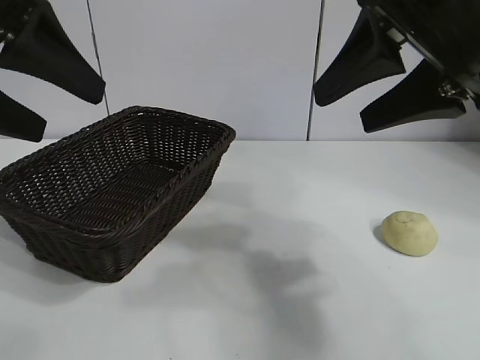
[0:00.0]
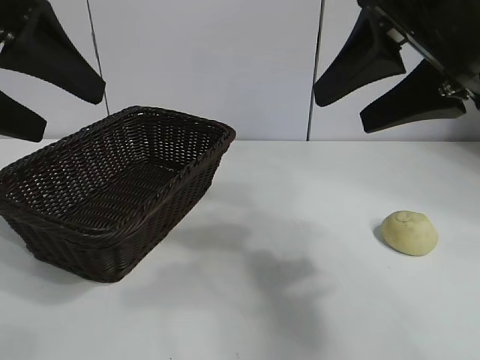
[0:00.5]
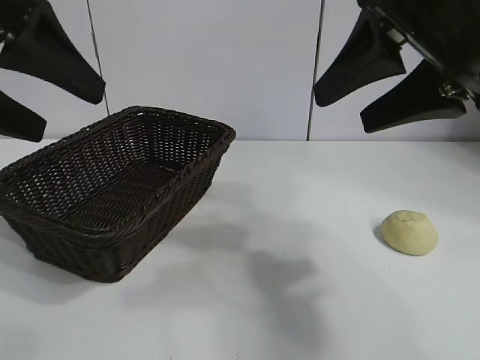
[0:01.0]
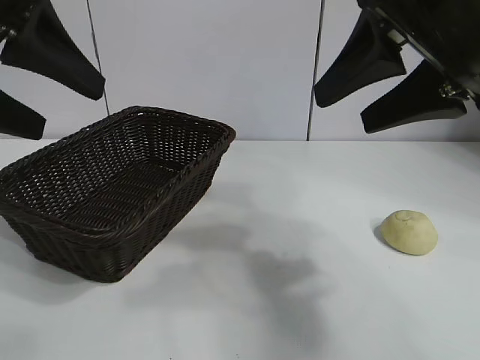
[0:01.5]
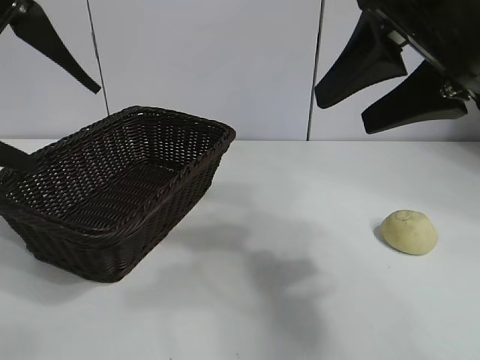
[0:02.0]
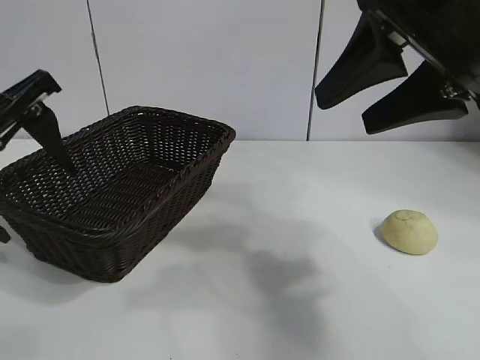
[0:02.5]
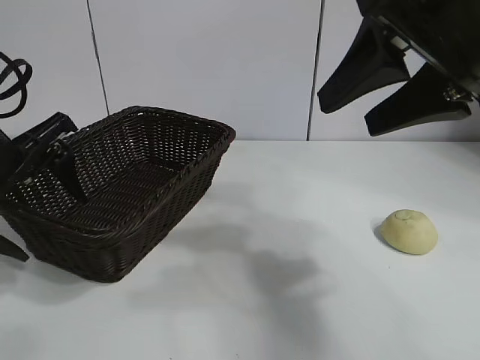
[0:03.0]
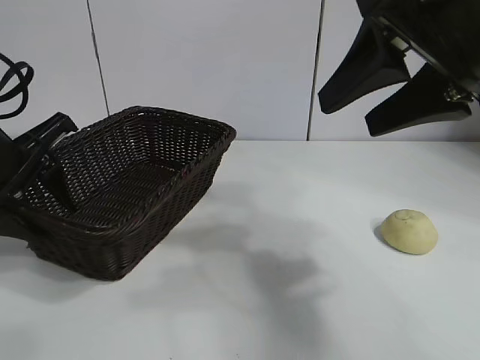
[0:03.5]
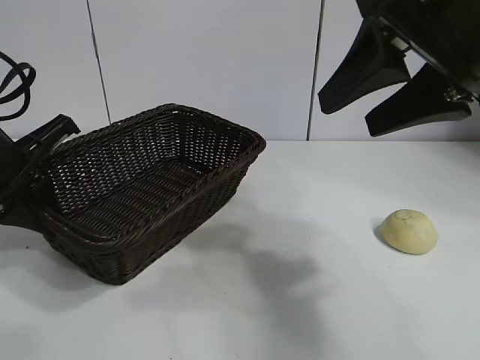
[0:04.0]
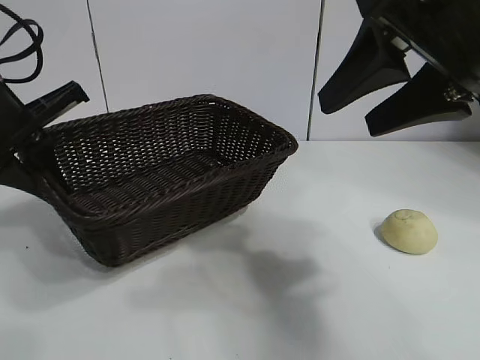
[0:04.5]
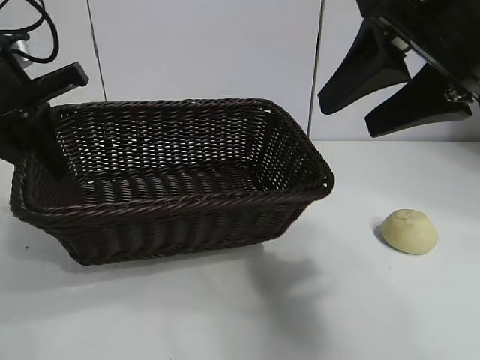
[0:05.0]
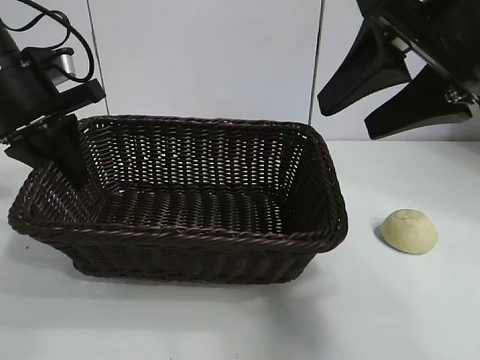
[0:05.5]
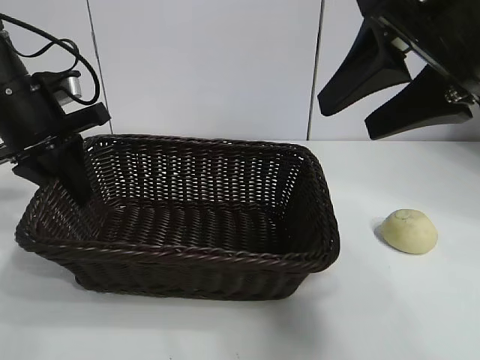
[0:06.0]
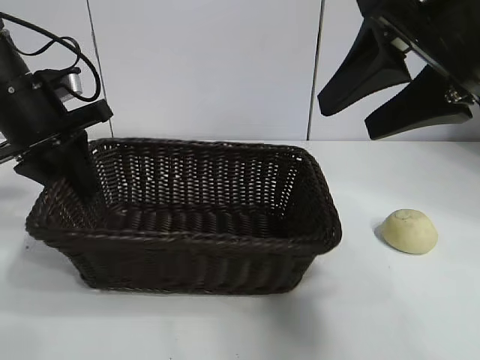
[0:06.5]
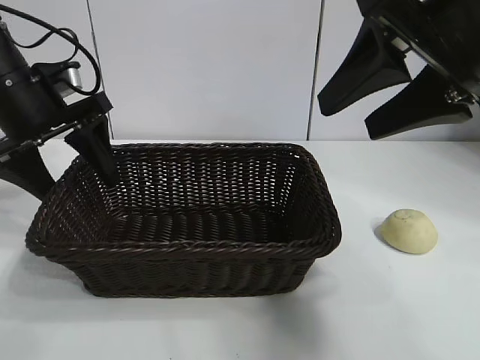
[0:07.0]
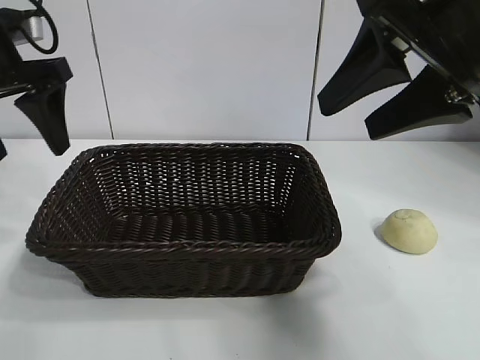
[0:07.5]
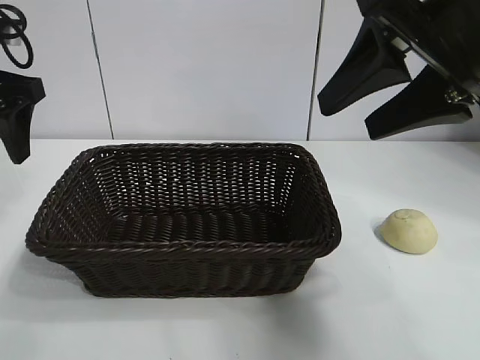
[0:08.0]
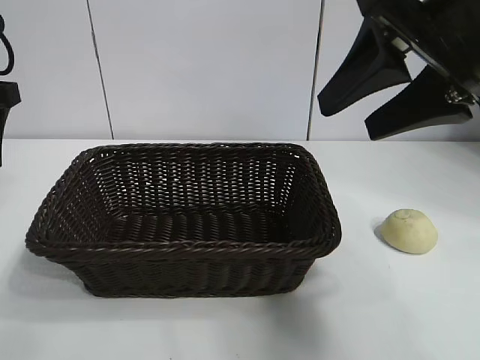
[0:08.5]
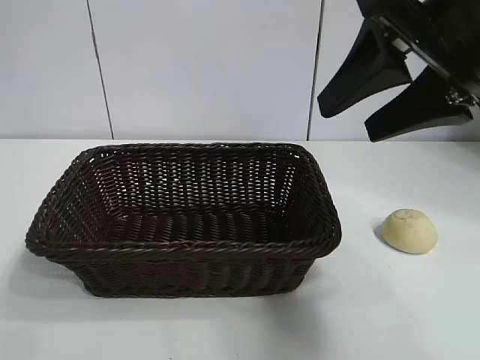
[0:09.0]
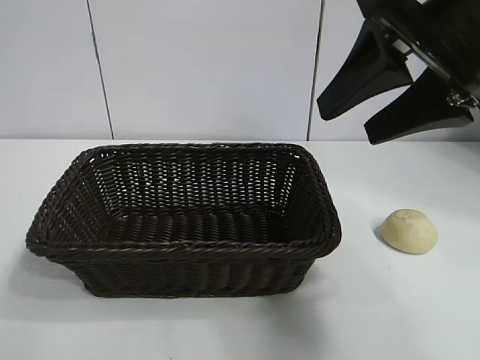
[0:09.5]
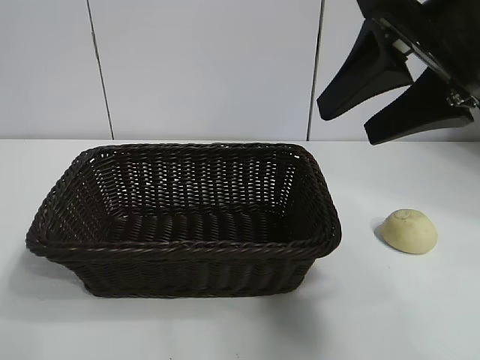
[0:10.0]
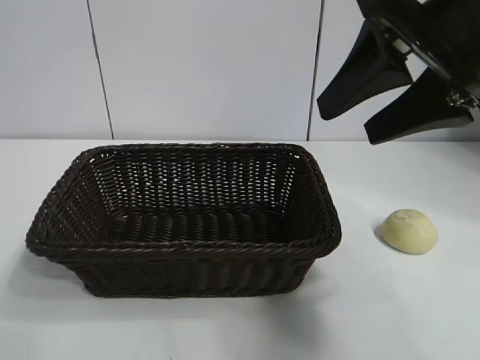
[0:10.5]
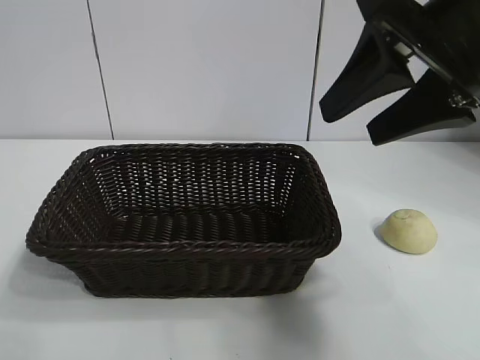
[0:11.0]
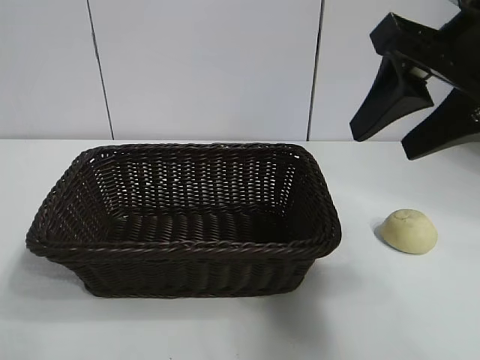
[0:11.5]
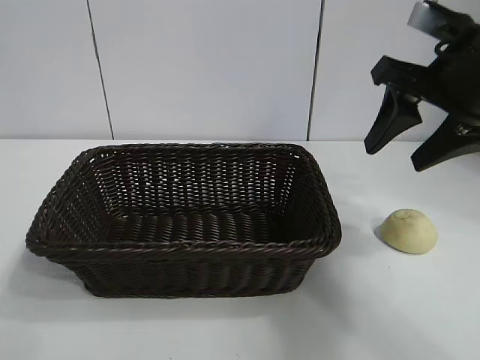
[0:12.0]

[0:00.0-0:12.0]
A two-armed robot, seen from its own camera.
Task of the whole recording: pick up the egg yolk pastry and put it into the basket.
Step, 0:02.0 to 0:03.5: Grasp the basket with left gripper.
Step, 0:04.0 to 0:07.0: Place the basket in the center of view with left gripper.

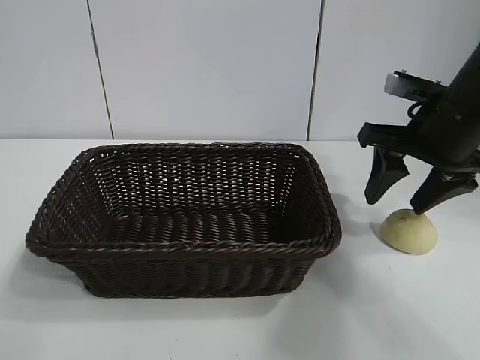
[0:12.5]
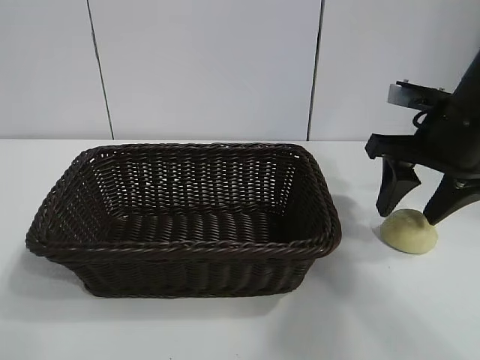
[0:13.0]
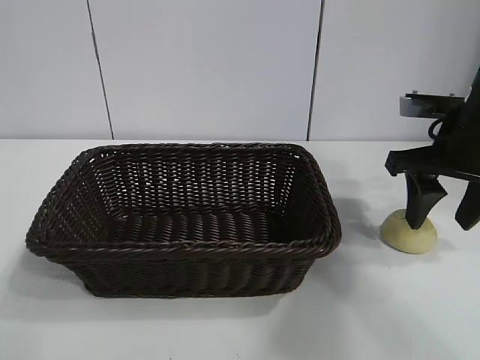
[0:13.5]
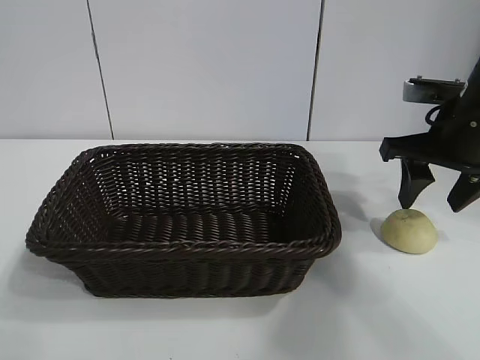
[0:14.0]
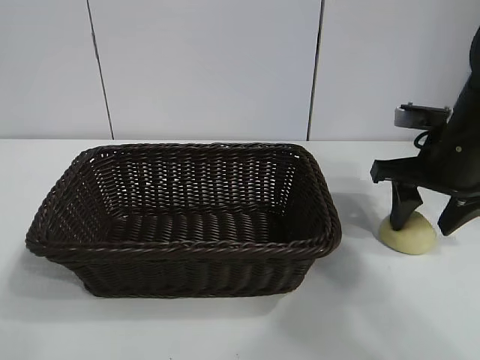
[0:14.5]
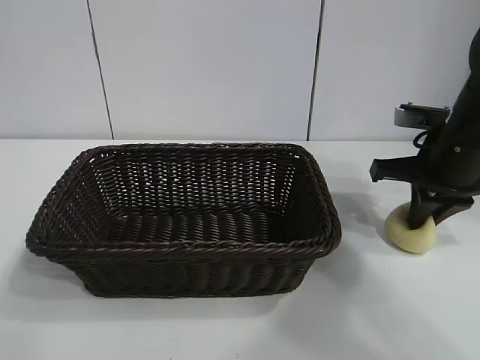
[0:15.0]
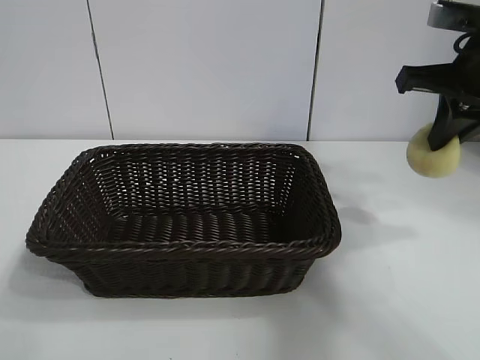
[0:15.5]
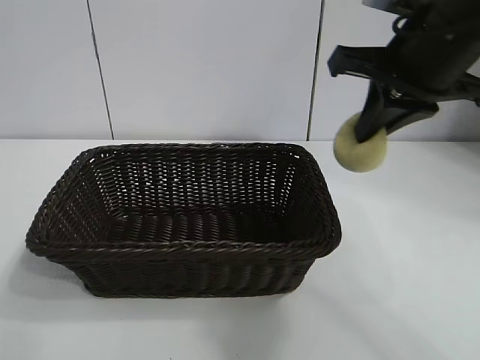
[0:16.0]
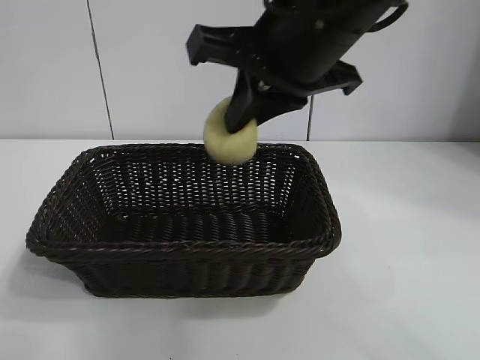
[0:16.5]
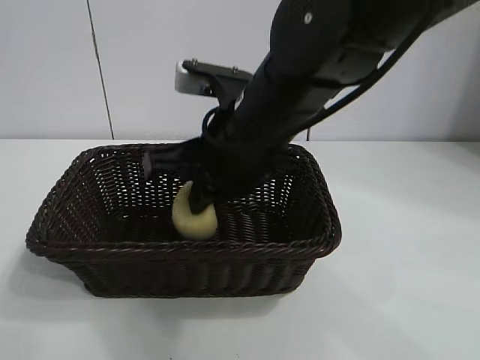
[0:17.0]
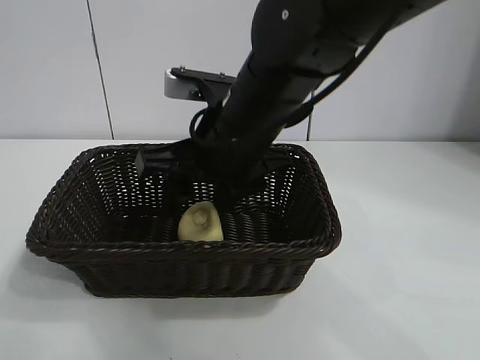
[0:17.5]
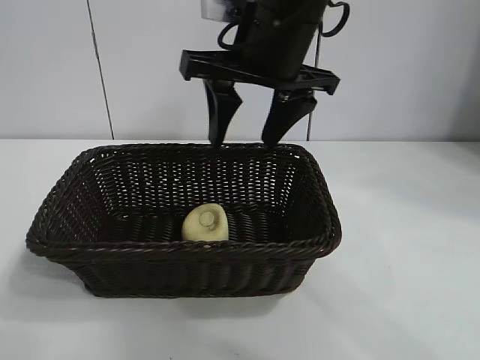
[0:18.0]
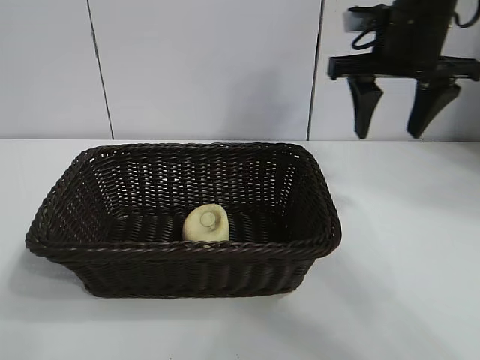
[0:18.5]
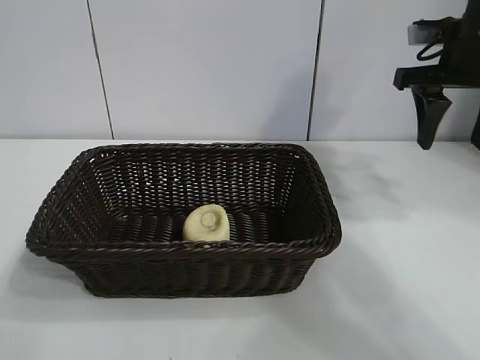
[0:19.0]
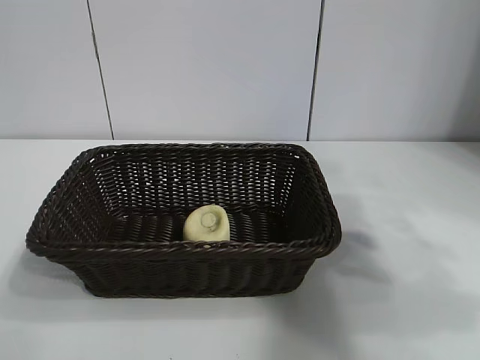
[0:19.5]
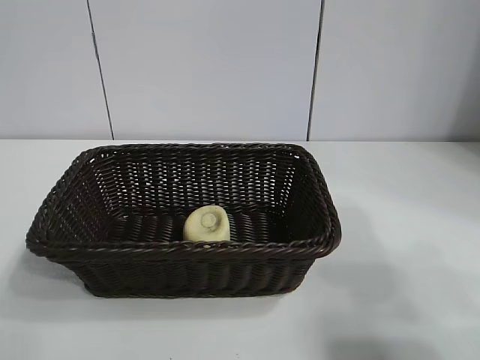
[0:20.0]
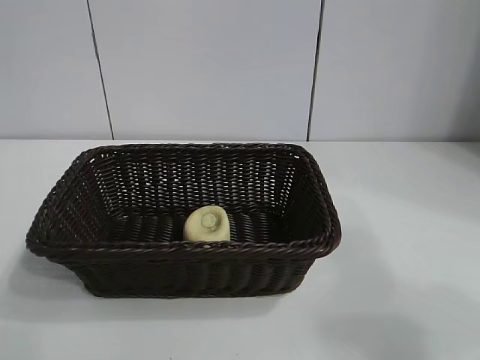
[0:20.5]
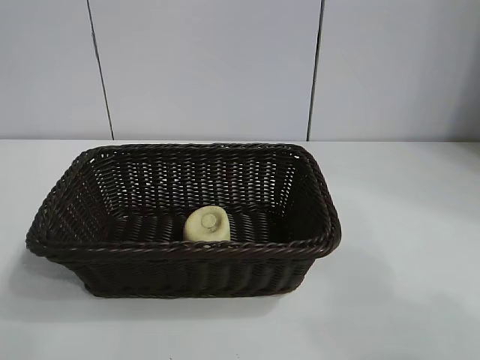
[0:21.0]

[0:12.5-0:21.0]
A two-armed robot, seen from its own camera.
Task of the whole recording: pick up the egg yolk pastry and put it into the basket.
Step, 0:12.5 to 0:14.5: Grasp egg yolk pastry with right gripper.
Step, 0:15.0 to 0:17.5: Place the egg yolk pastry in the basket with right gripper.
